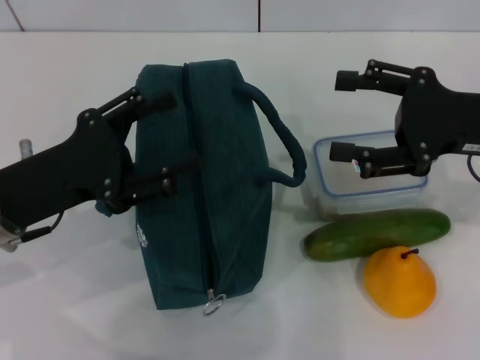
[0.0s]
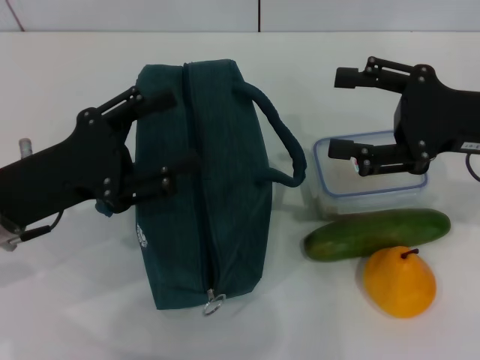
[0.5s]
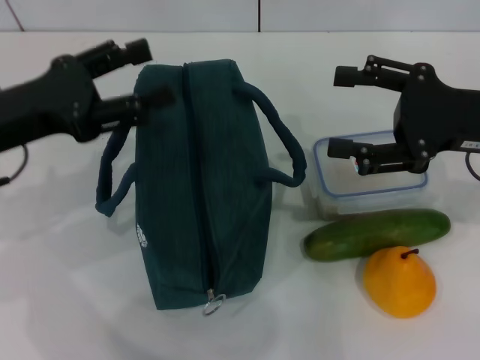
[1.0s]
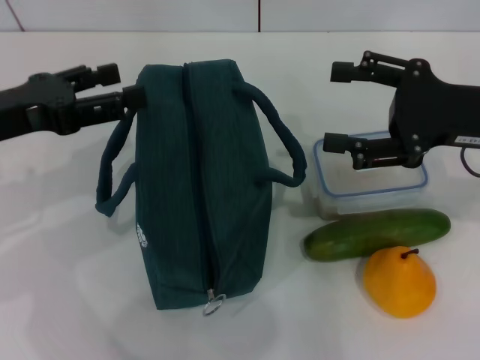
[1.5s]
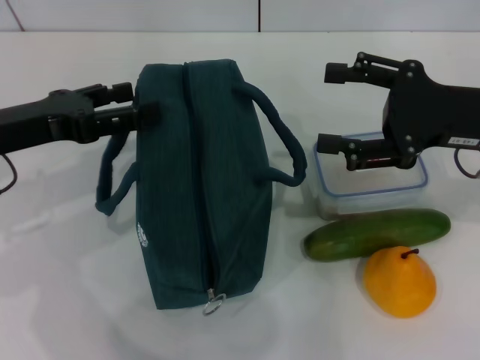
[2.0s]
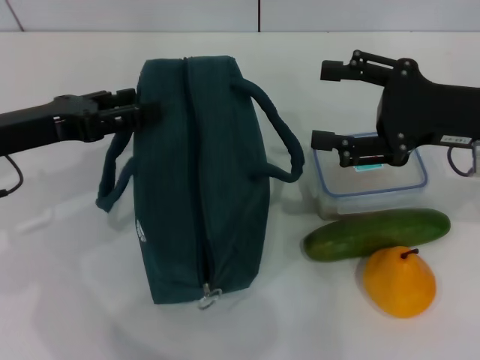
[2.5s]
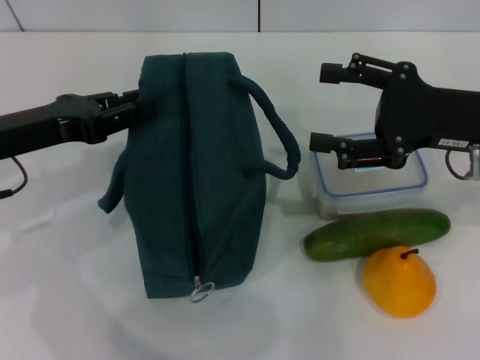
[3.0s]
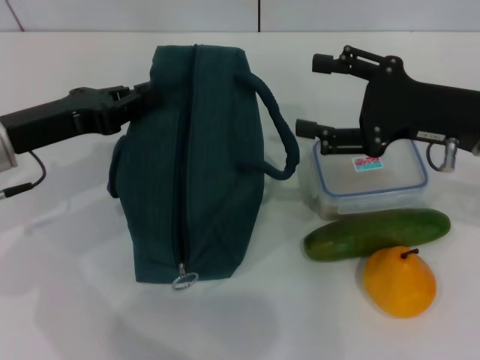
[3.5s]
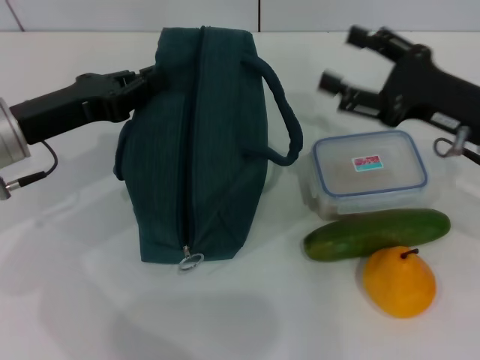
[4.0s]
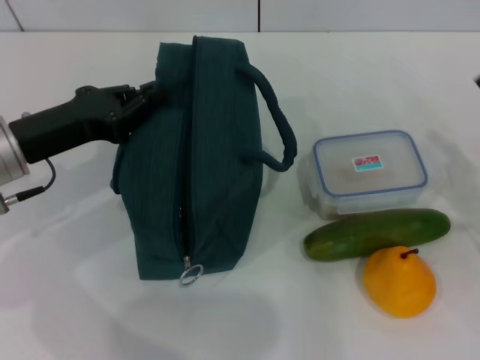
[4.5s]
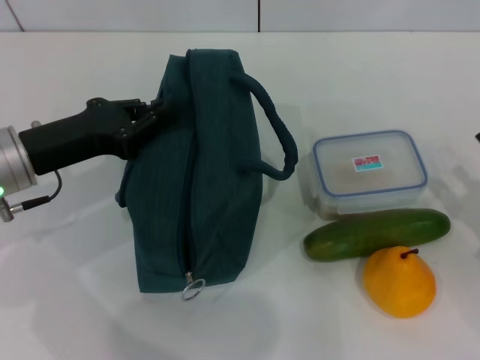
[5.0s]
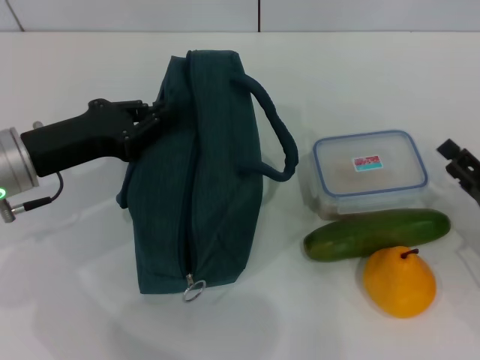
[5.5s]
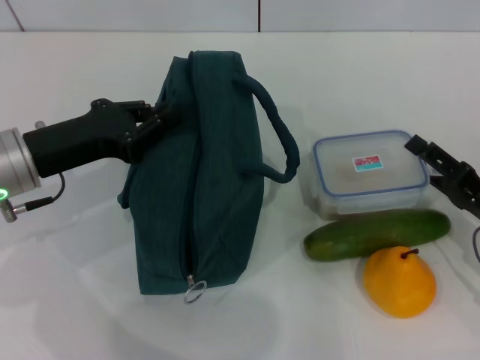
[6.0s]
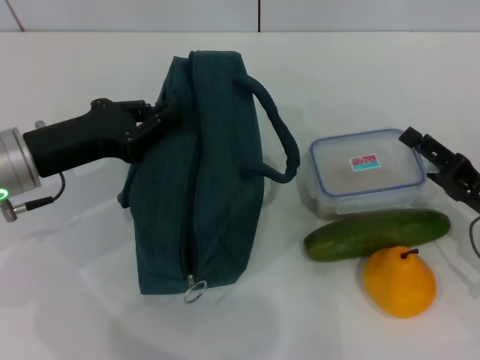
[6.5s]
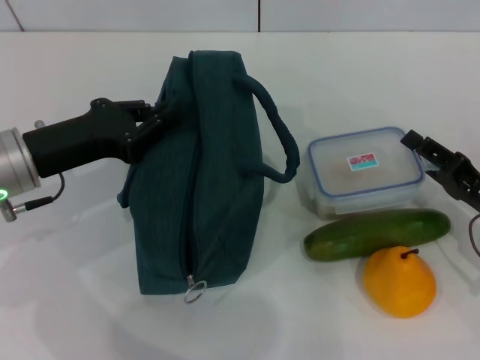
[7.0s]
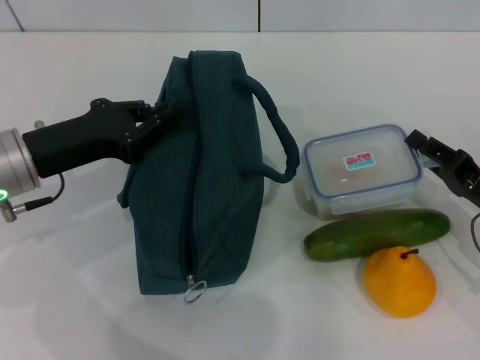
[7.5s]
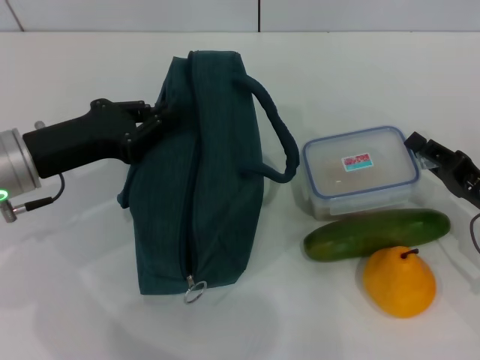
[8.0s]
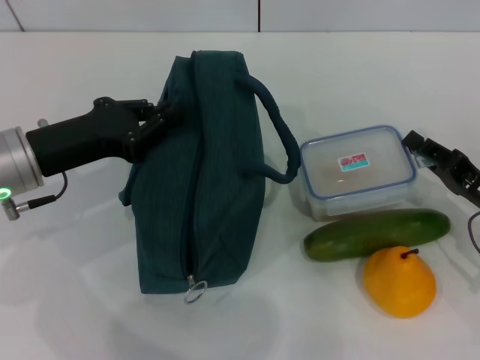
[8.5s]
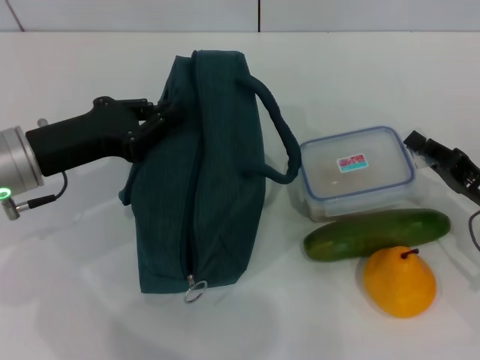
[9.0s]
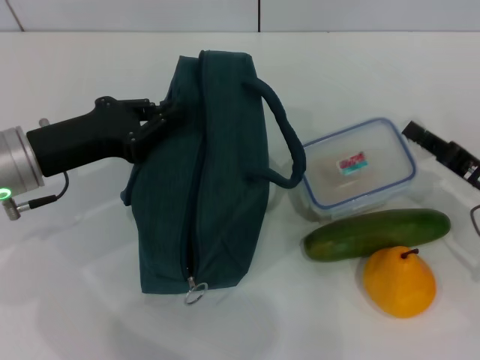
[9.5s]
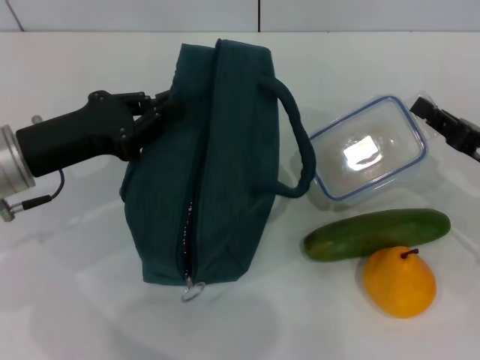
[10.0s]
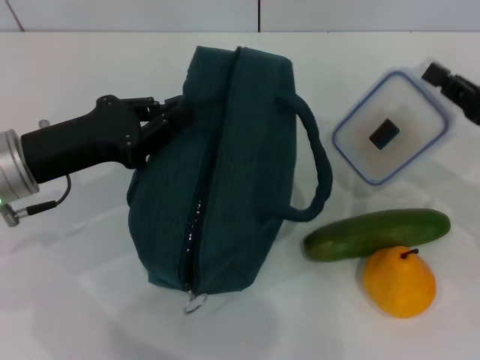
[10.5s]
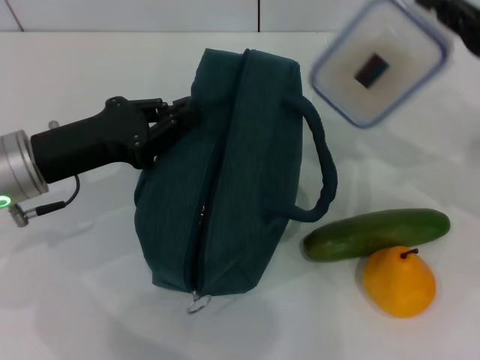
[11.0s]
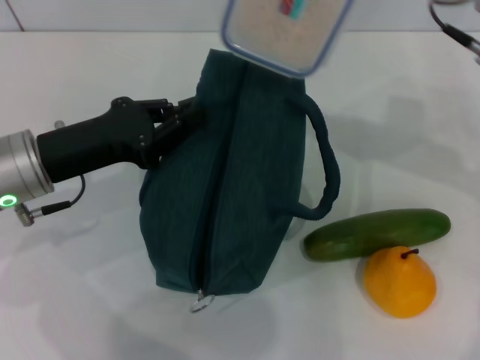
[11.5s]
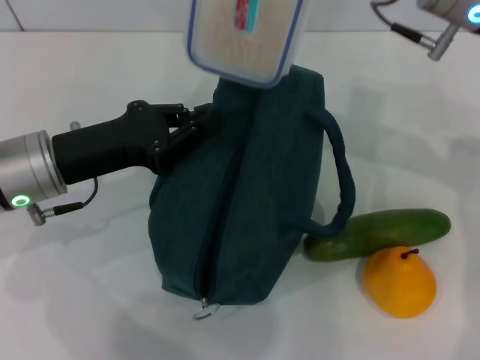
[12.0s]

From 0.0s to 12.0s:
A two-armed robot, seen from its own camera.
Step, from 0.0s to 4.0s: Hold the lunch bag with your left hand.
Step, from 4.5s to 9.0s: Pick up the lunch box with your right hand.
From 0.0s to 2.0s: The left gripper ends up roughly 5 cm from where it was.
From 2.0s to 4.0s: The left gripper closes its fingers.
From 4.0s to 6.0s: The right gripper goes some 10 cm downward and backward.
From 6.0s to 8.0s: The right gripper closes.
From 10.0s to 12.0s: The right gripper goes roughly 25 cm upward, to the left and forward.

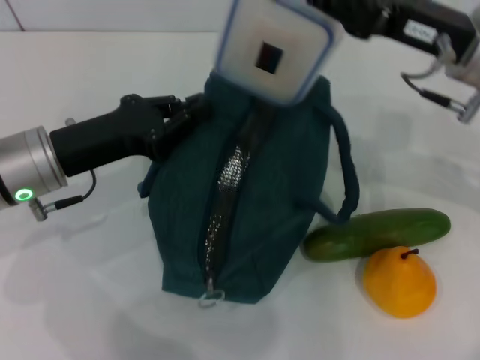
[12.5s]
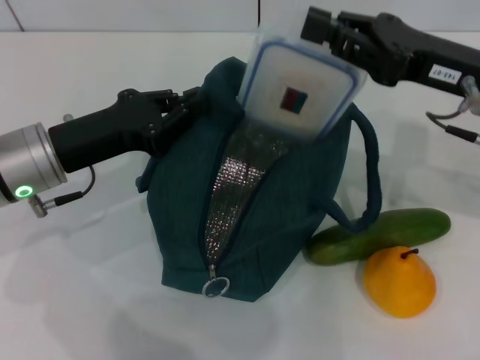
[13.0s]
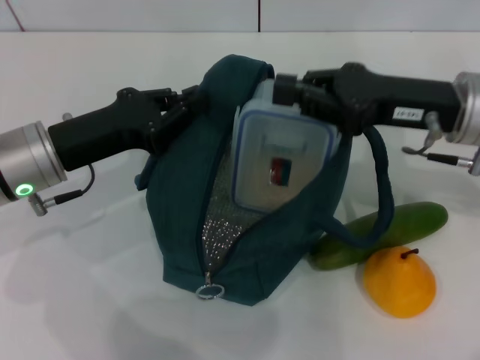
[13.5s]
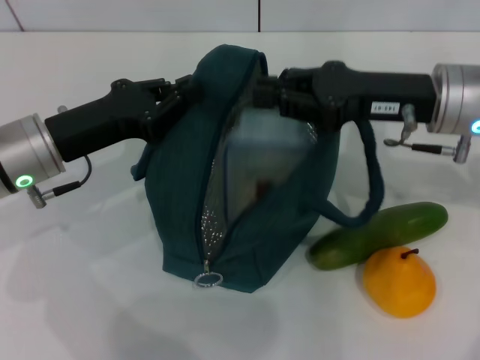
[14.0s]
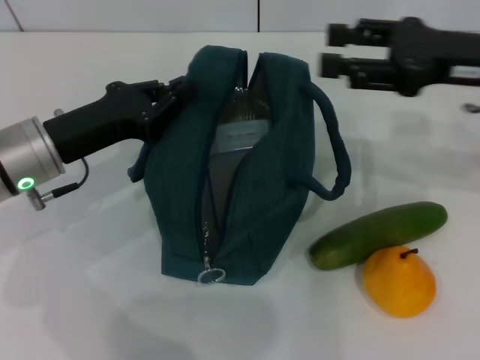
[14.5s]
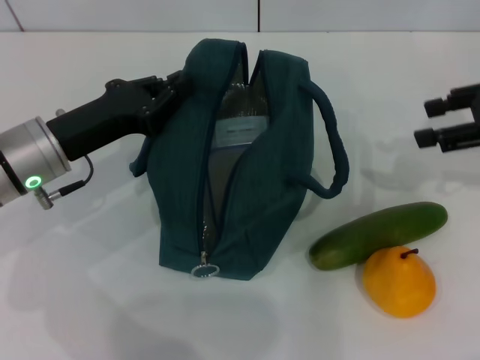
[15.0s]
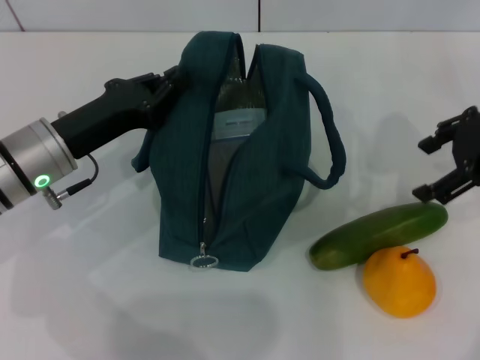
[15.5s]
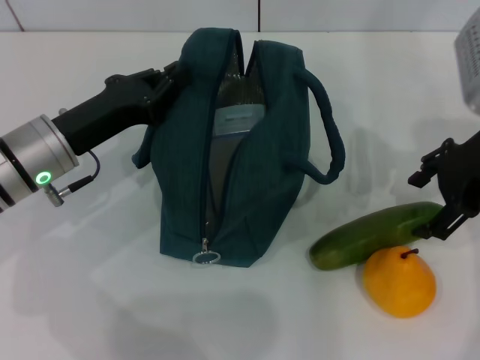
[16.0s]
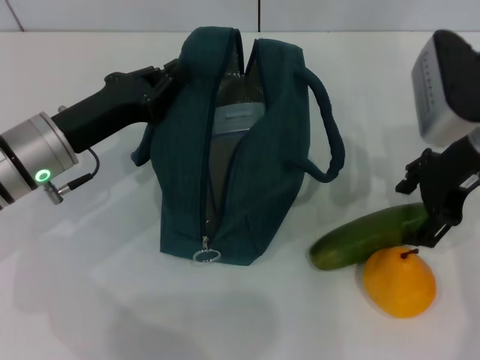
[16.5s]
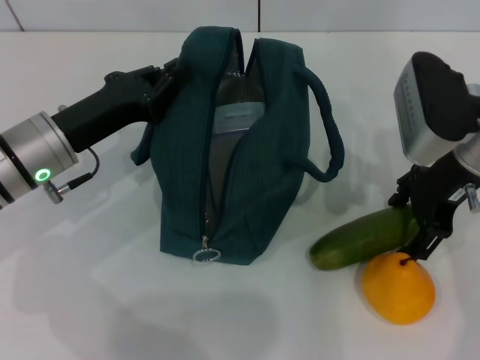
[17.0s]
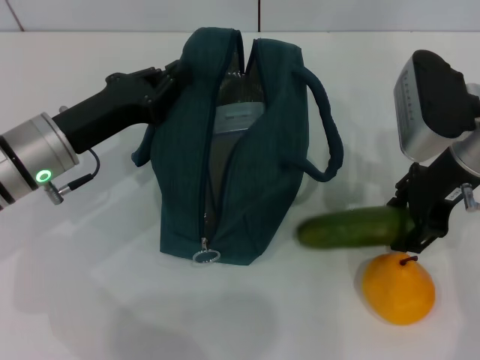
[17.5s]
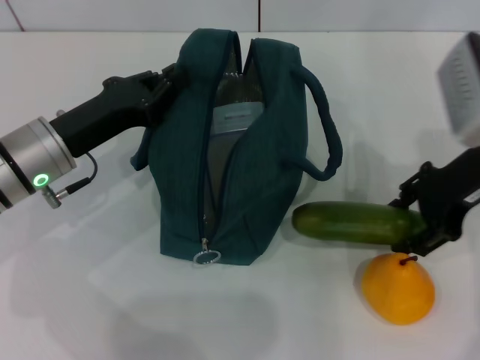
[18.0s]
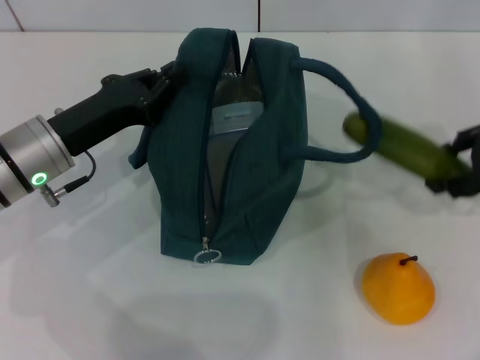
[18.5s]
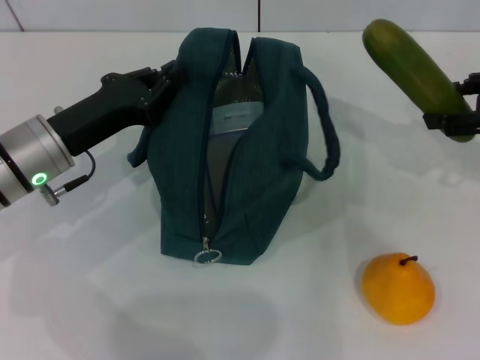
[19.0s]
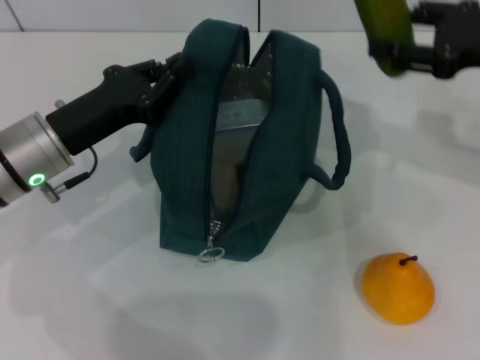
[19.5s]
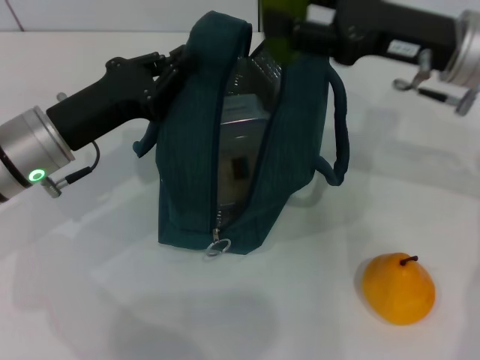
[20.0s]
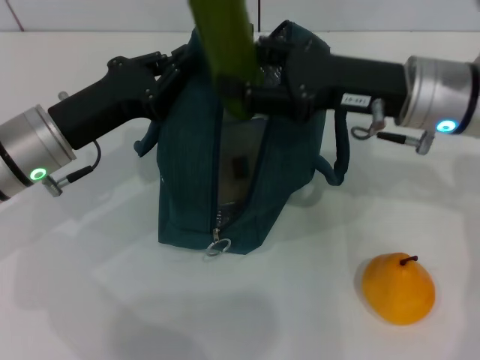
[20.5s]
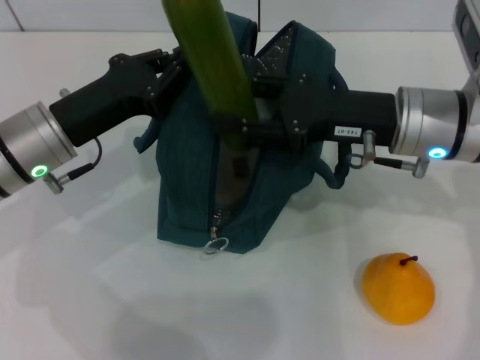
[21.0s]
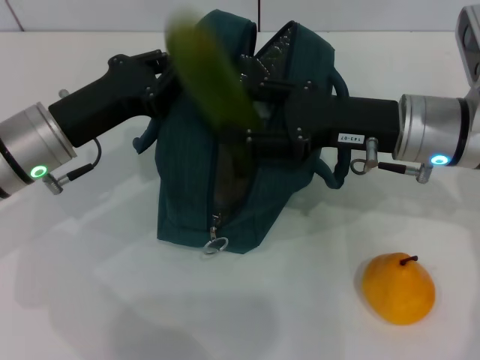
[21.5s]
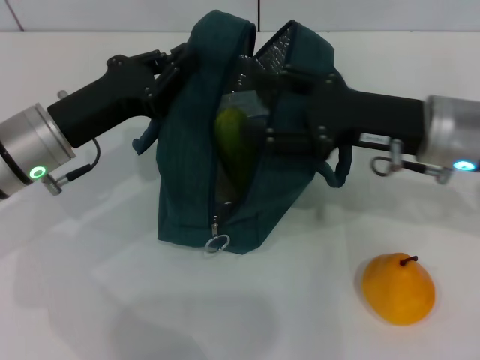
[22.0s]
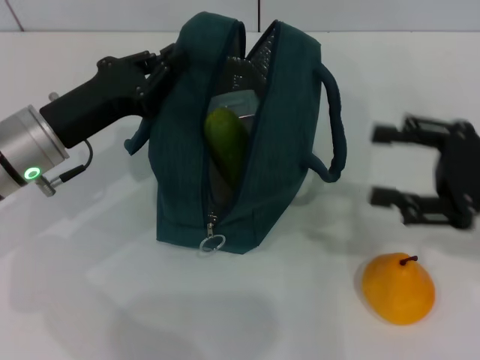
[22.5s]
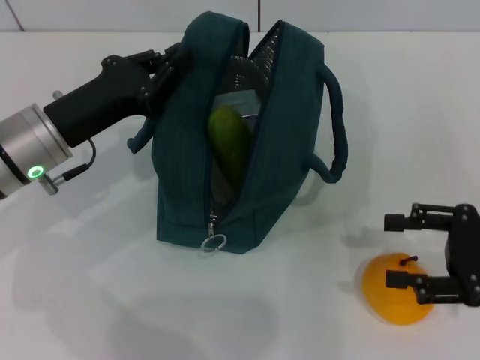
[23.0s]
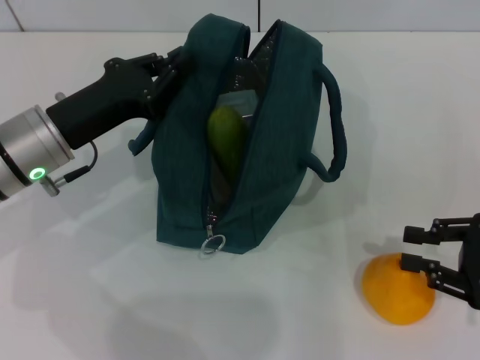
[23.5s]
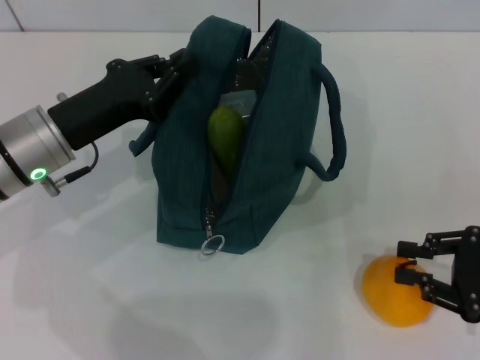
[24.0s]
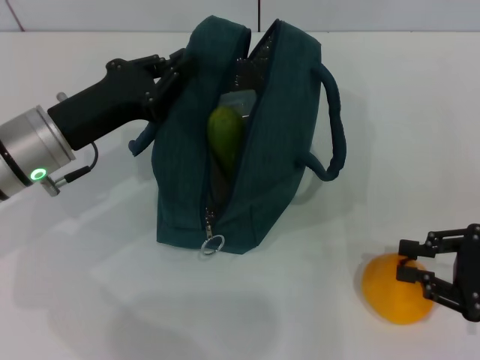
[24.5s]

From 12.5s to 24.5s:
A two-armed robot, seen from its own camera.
Step, from 14.5s to 17.5s: Pick up the cucumber with your right hand.
Step, from 18.0s to 22.0s: Put the cucumber into the lunch bag with your right hand.
From 12.5s to 14.5s: The right gripper heads to the right, covering about 5 cm, and opens up.
From 14.5s to 16.5s: The right gripper moves approximately 5 cm, and opens its fingers.
From 16.5s to 18.5s: The right gripper travels to the right by about 10 cm.
From 18.5s to 20.5s: The right gripper travels to the left by some 15 cm.
From 20.5s to 22.5s: The right gripper heads to the right and backward, covering some 15 cm.
From 22.5s to 24.5s: The right gripper heads downward and backward, covering approximately 10 cm, and closes up.

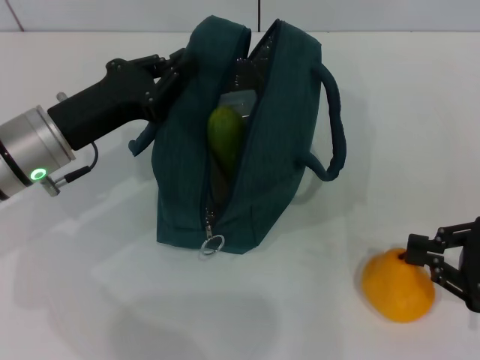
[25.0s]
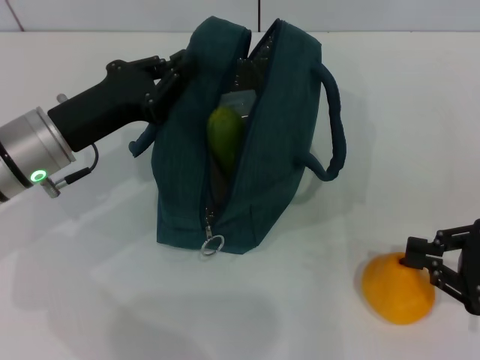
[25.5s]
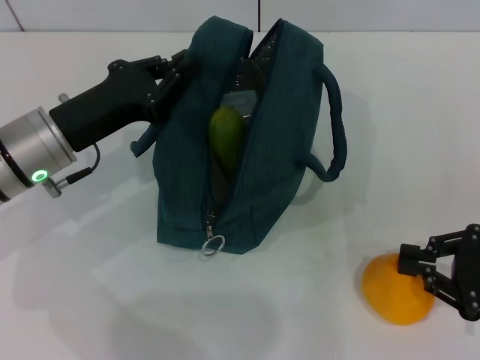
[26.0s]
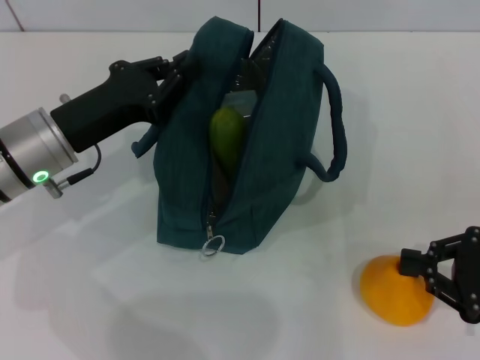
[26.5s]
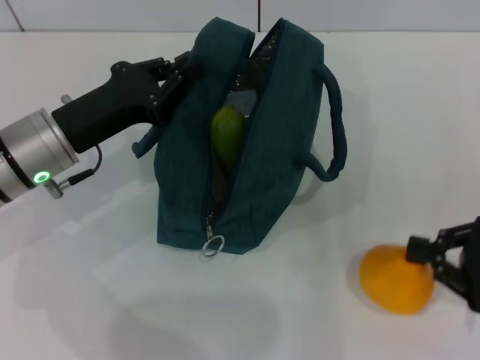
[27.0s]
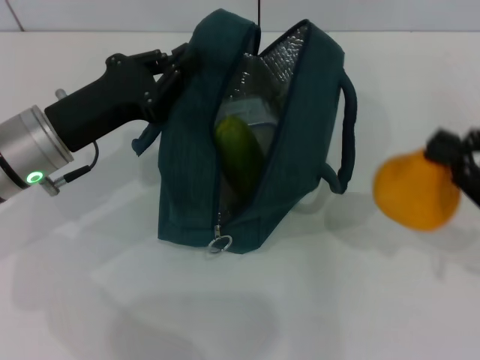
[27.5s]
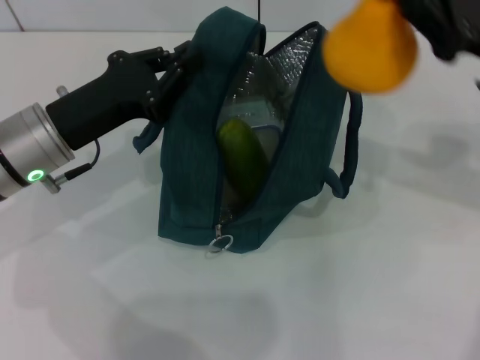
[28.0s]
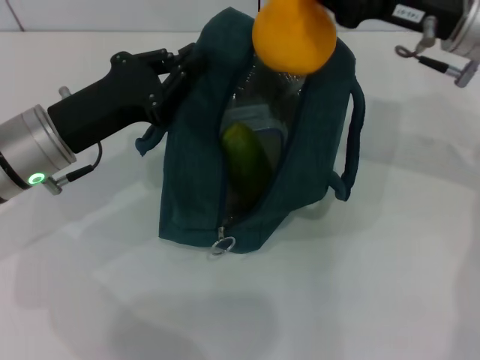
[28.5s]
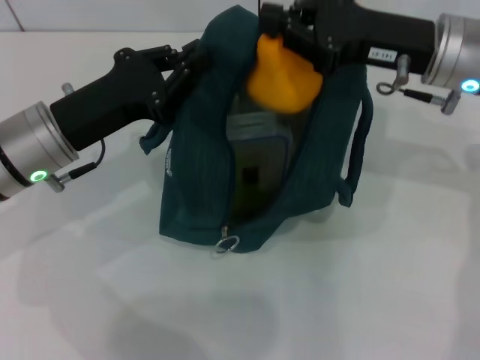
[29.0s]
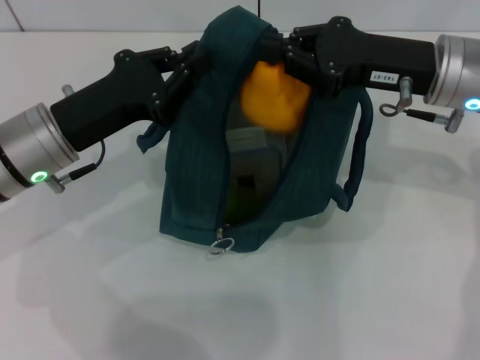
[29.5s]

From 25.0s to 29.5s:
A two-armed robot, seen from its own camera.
From 25.0s to 27.0s: Both grippers stay put.
From 27.0s to 29.5s: The right gripper moves forward, to the left and upward, about 20 cm.
